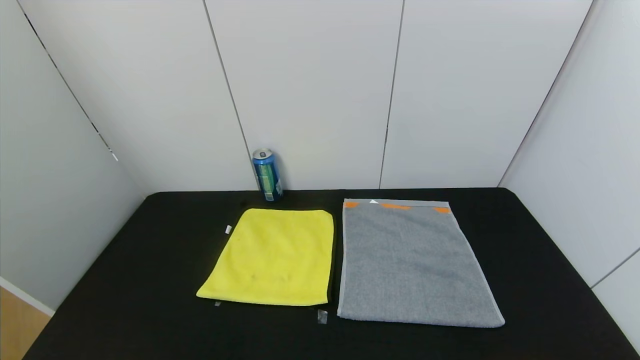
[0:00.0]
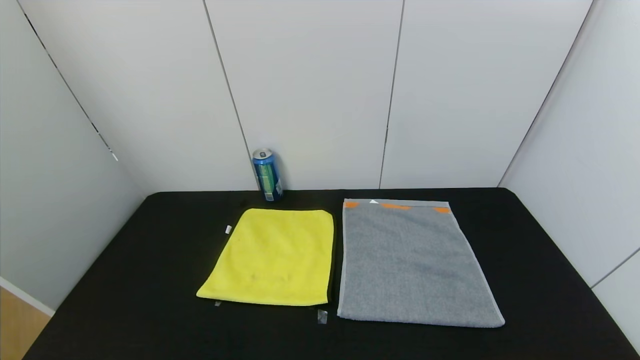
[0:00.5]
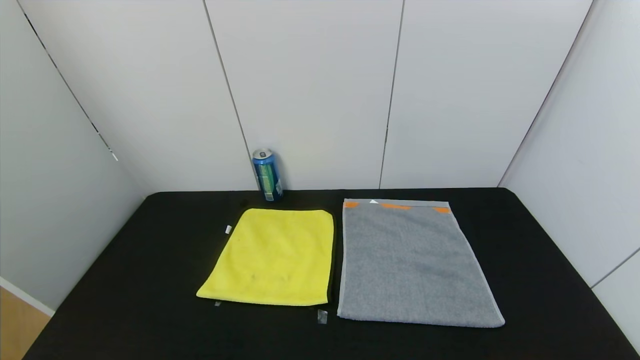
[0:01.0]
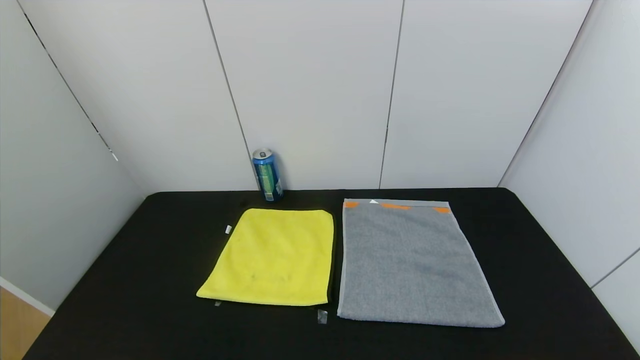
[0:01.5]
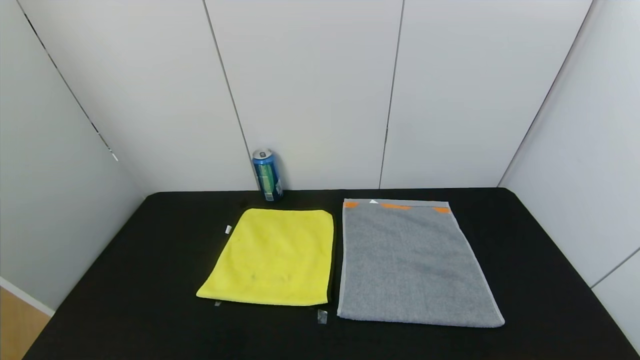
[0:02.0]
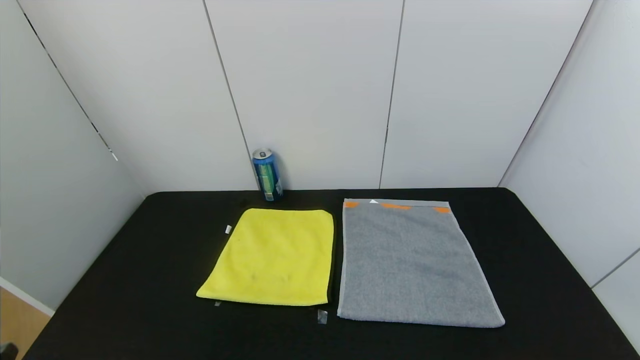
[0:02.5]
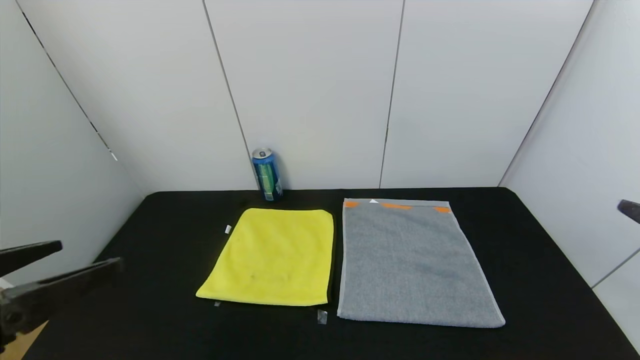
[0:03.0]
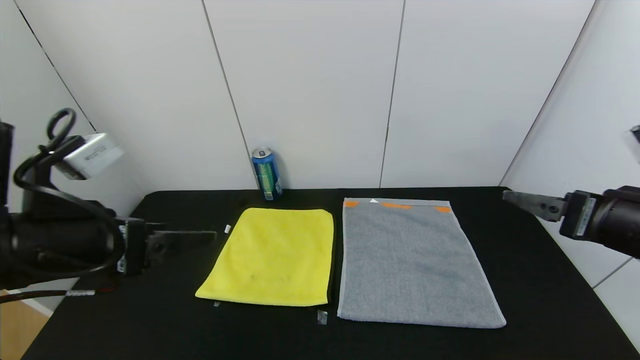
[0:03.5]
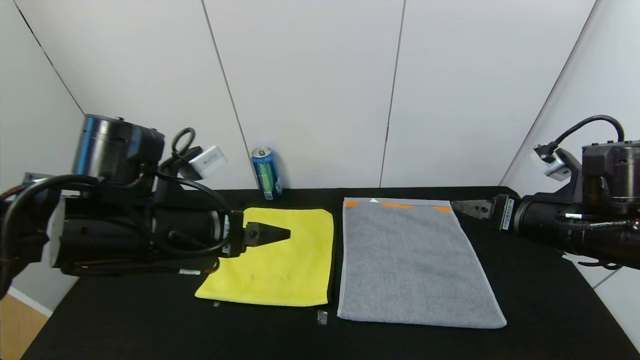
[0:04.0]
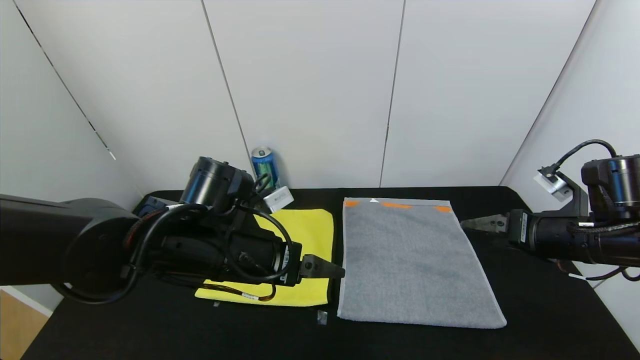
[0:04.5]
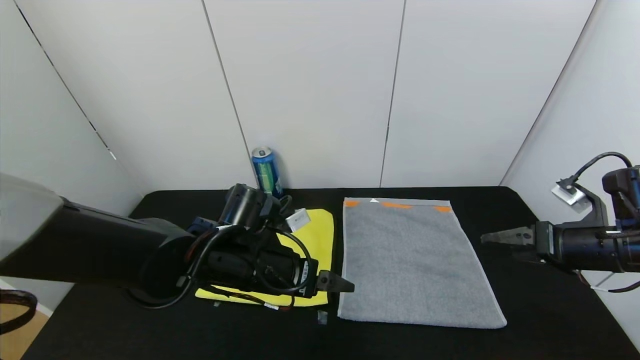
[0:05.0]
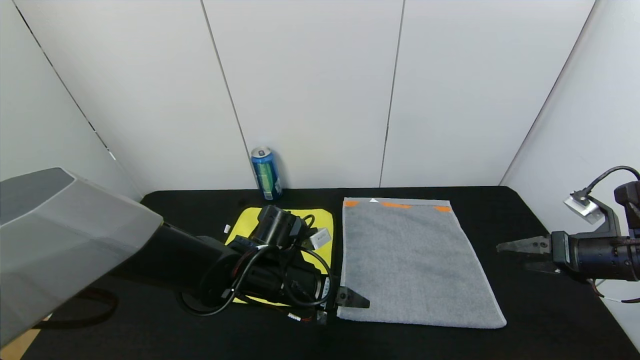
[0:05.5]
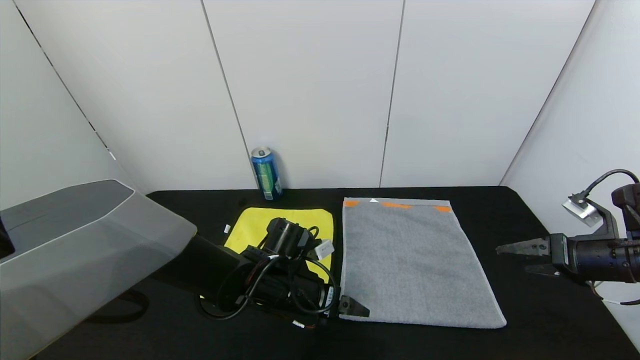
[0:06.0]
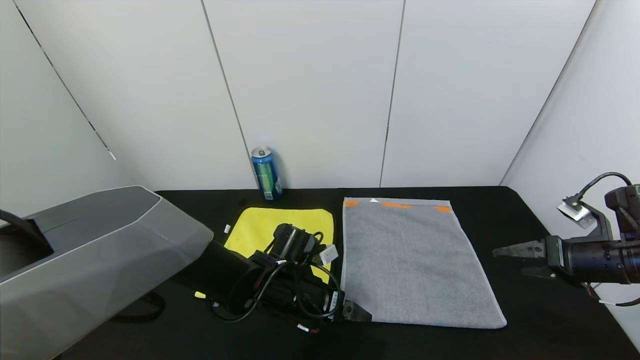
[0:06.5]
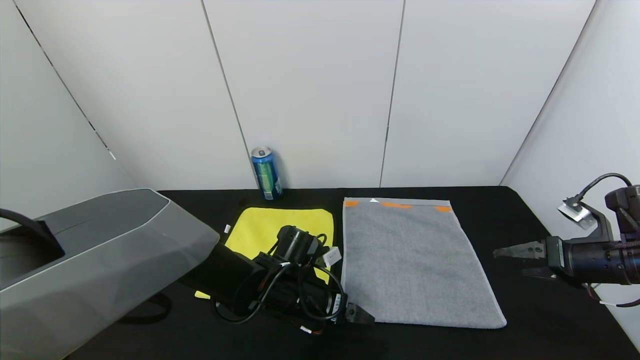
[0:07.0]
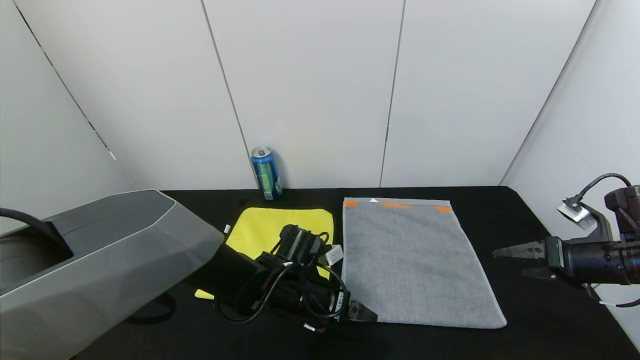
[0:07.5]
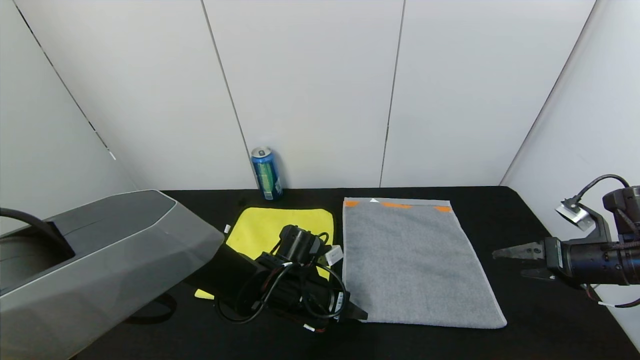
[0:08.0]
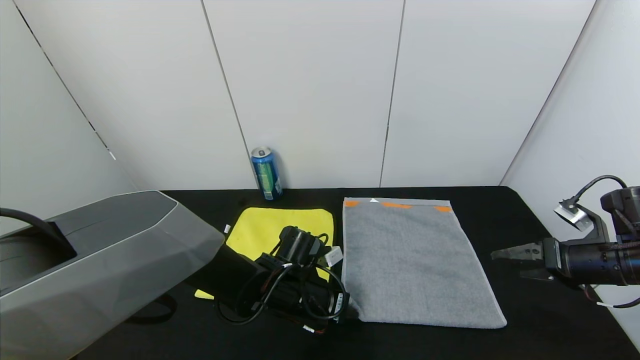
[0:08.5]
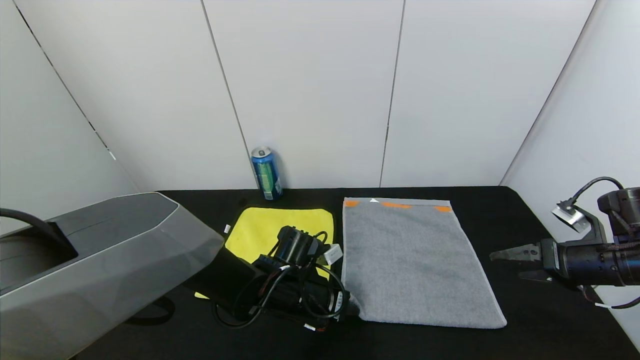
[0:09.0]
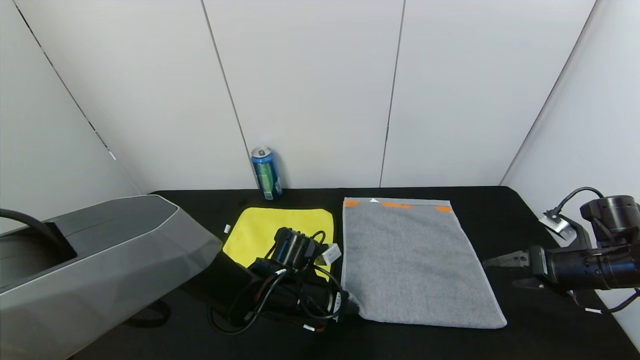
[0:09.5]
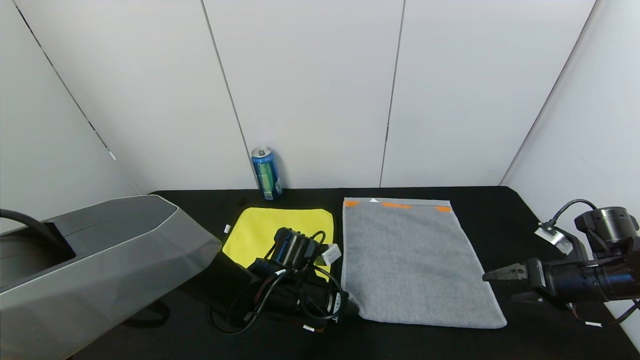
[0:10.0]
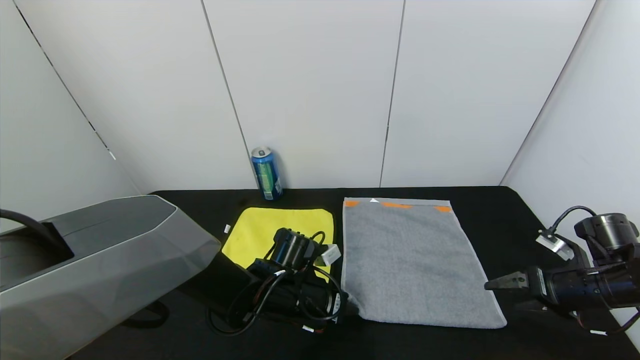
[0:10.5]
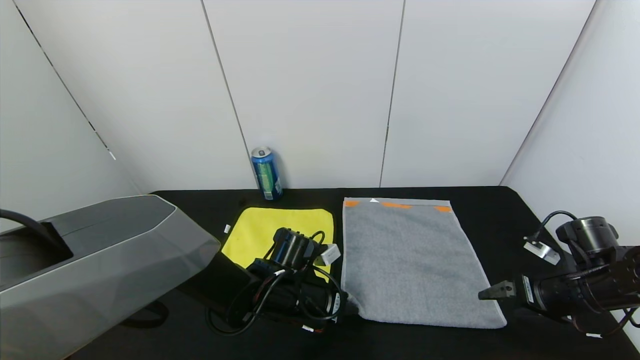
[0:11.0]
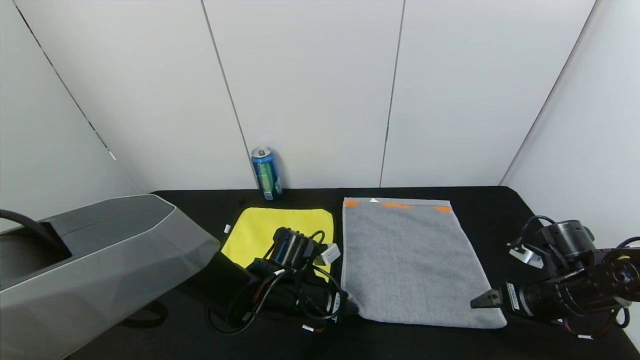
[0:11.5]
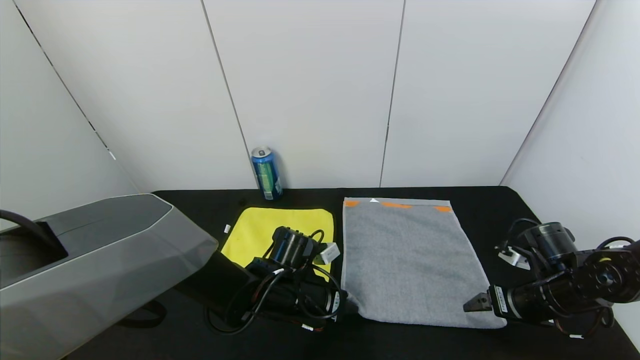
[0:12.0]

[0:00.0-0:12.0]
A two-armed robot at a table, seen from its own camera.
Task of the whole recording: Use the gripper to fold the yellow towel and grey towel in half twice,then put the yellow towel on the grey towel.
0:02.0 to 0:04.0: Both grippers travel together forward, some 30 cm.
0:04.0 to 0:06.0: The left gripper is displaced downward and to the right by some 20 cm. Meanwhile the right gripper travels to the right and downward by about 15 cm.
0:06.0 to 0:08.0: The left gripper closes.
0:08.0 to 0:10.0: The left gripper closes its fingers.
0:10.0 to 0:12.0: The right gripper moves to the left, approximately 5 cm.

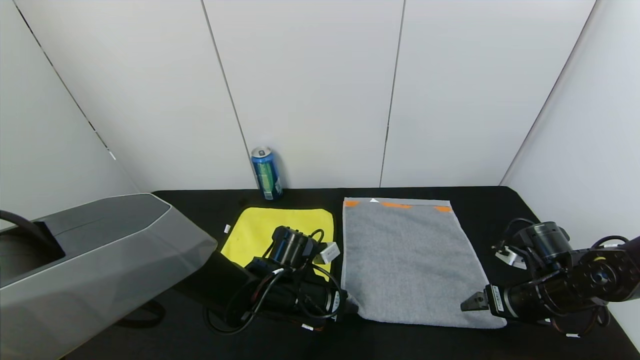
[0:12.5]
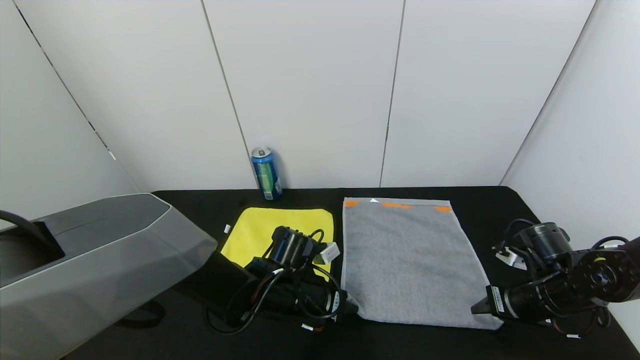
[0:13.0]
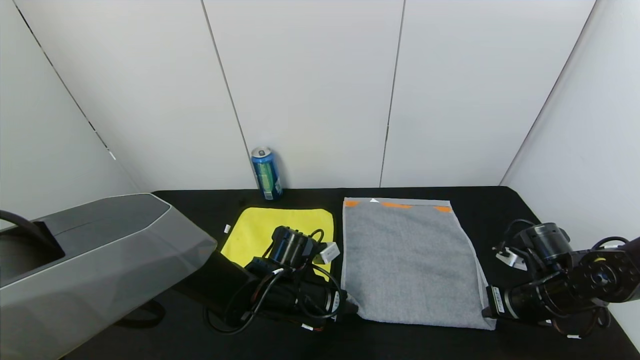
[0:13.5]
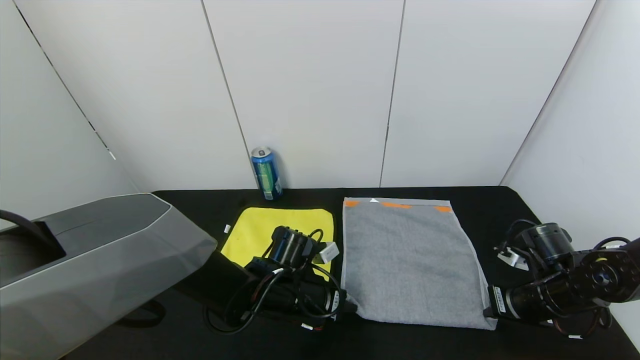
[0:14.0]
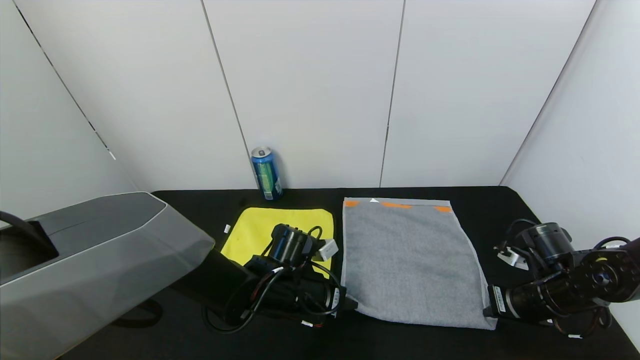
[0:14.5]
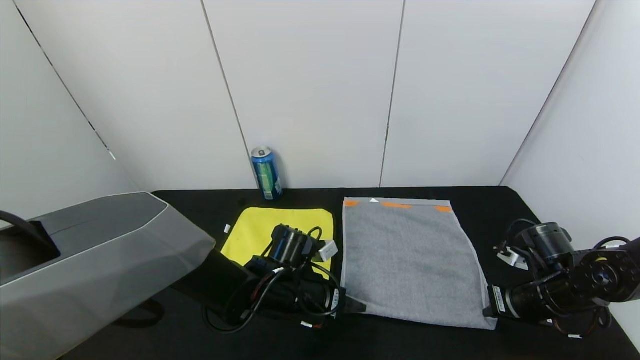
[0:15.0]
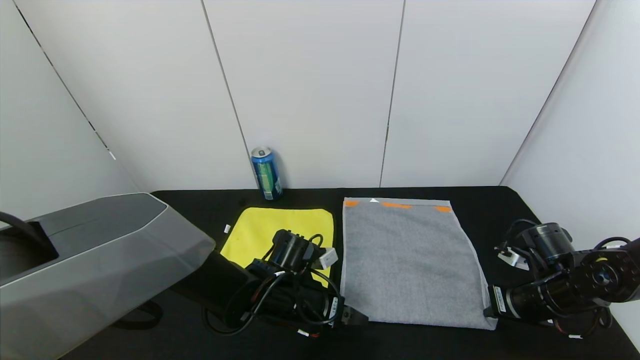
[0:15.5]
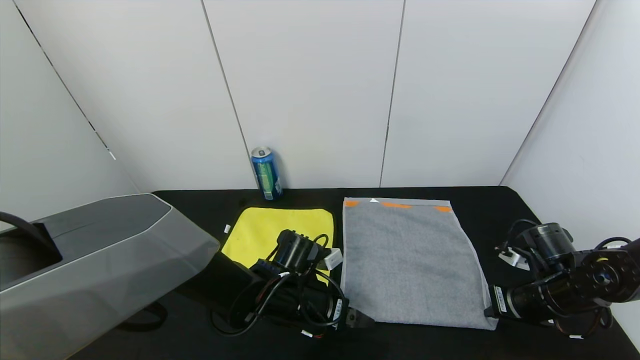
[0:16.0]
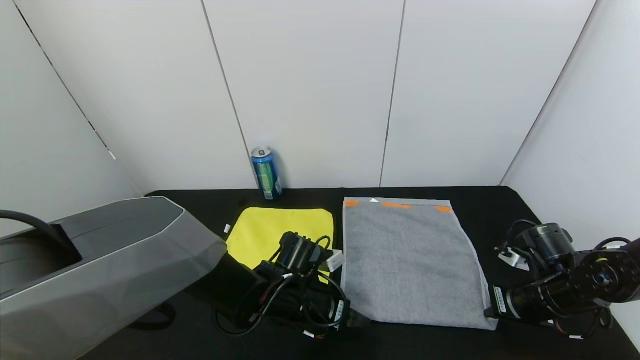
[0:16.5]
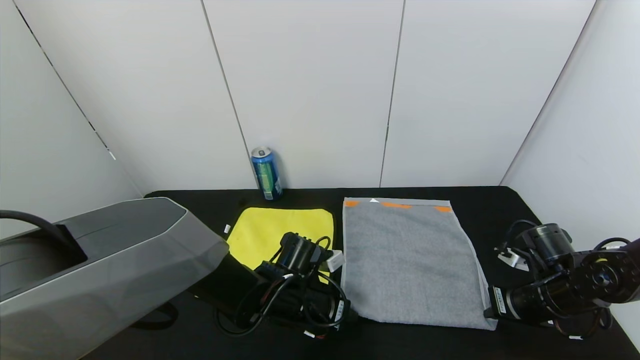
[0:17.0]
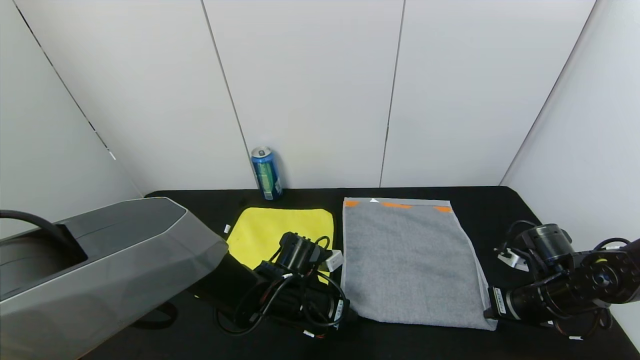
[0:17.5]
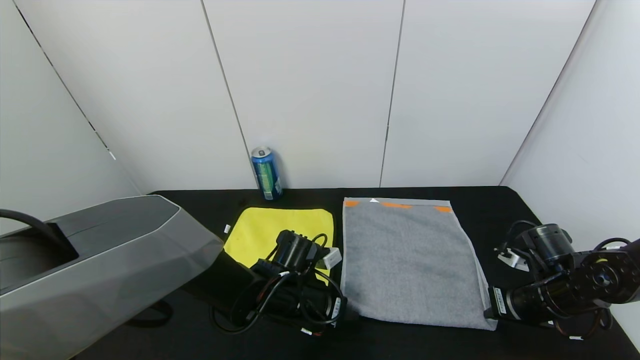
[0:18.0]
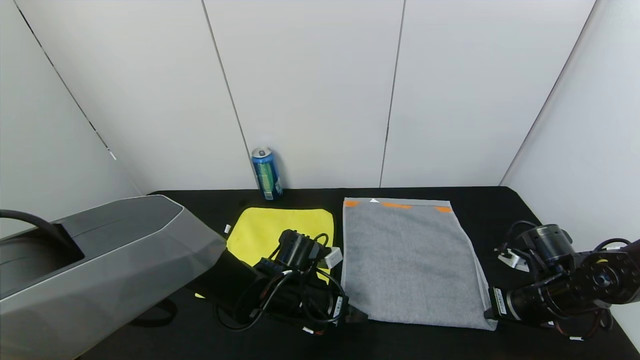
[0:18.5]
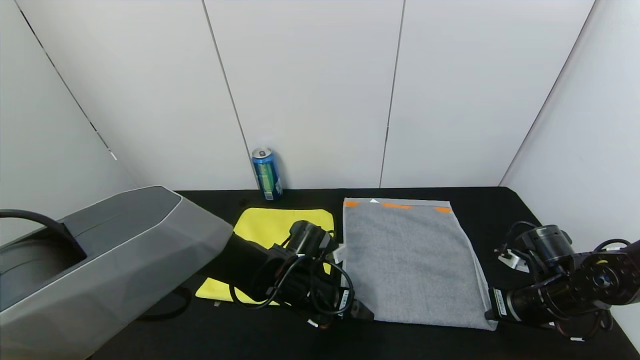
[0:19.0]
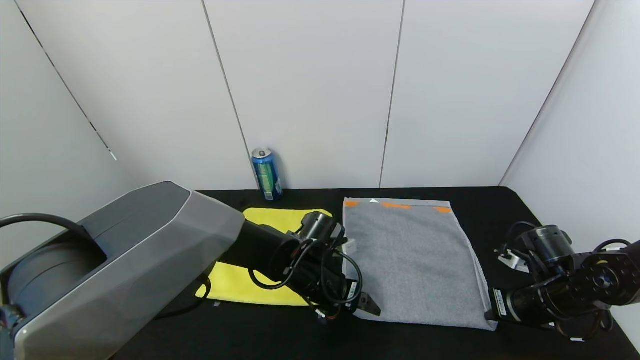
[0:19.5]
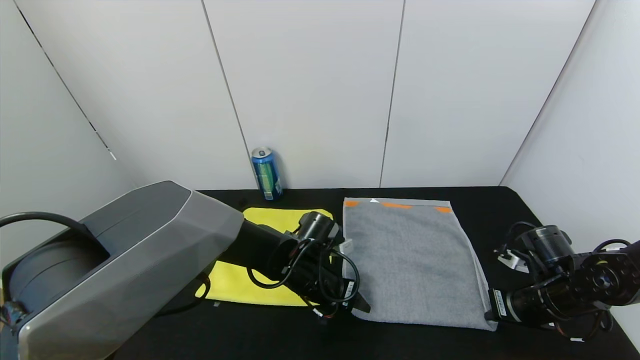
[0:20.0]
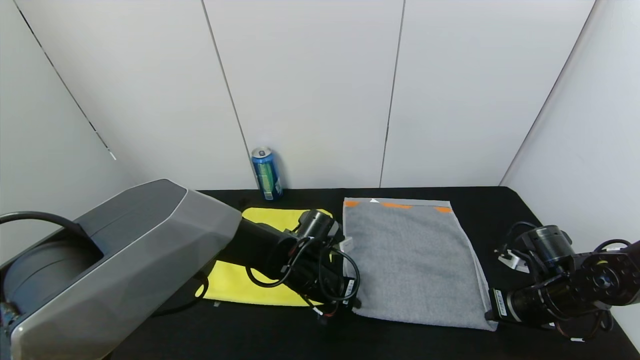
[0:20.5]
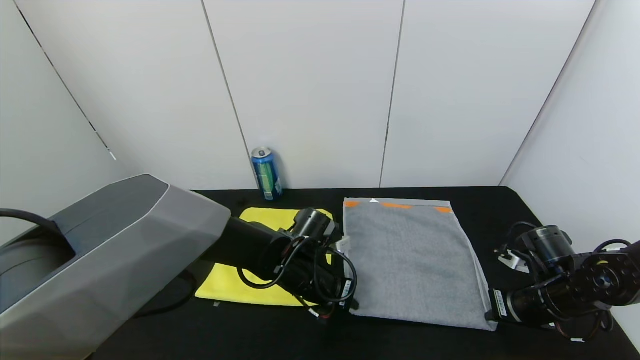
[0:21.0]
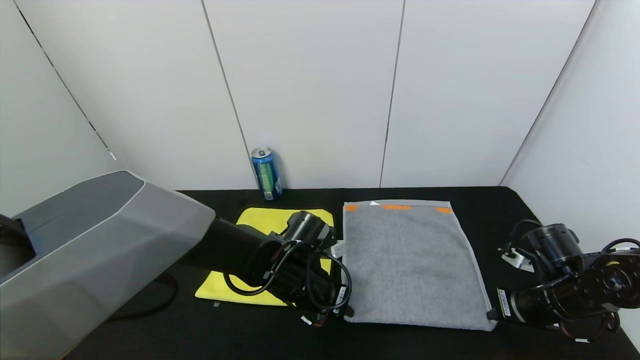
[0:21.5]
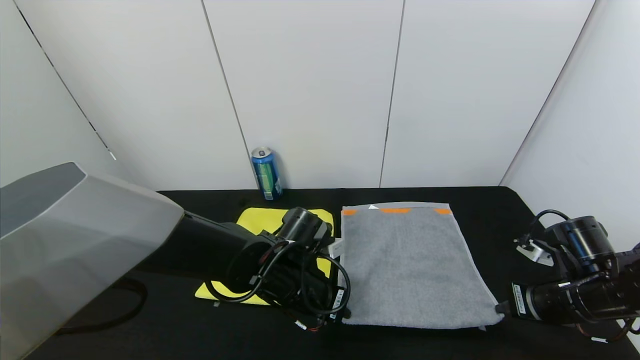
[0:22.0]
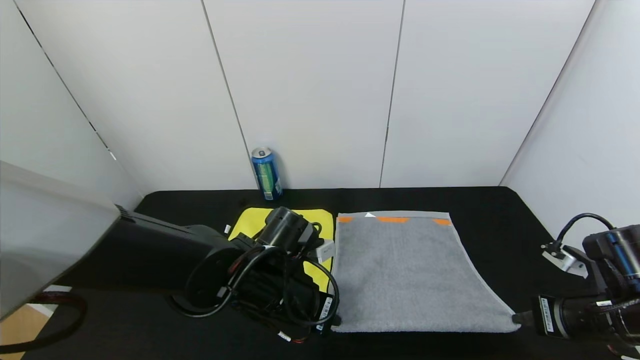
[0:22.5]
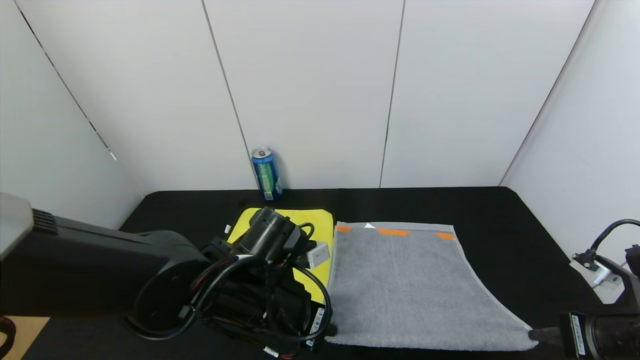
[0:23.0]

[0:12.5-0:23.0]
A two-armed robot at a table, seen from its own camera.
Task of the whole recording: Use the gripper to fold the yellow towel and grey towel in half twice,then put the yellow towel on the grey towel.
0:12.5 to 0:14.5: The right gripper closes up.
0:14.5 to 0:16.5: The left gripper opens its fingers.
0:16.5 to 0:19.0: The left gripper closes, then reopens.
0:19.0 to 0:21.0: The left gripper closes.
0:21.0 to 0:23.0: Both grippers travel together backward and upward, approximately 15 cm.
